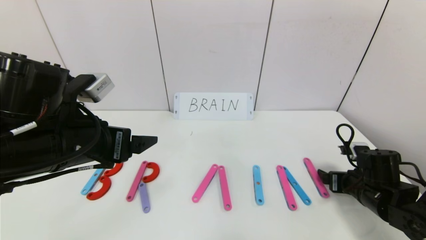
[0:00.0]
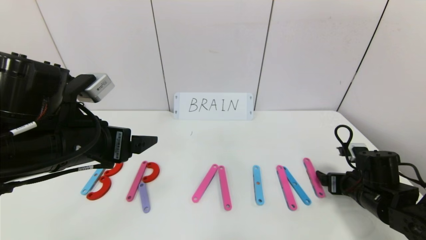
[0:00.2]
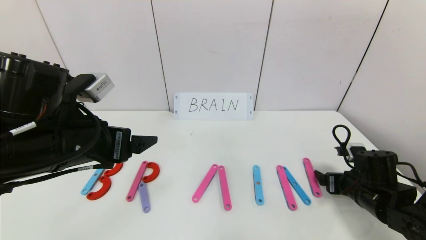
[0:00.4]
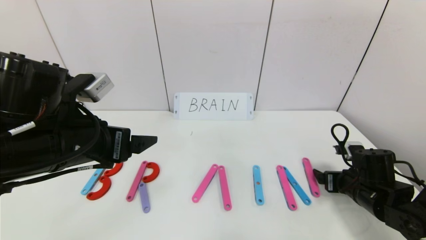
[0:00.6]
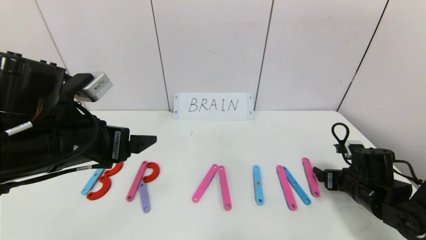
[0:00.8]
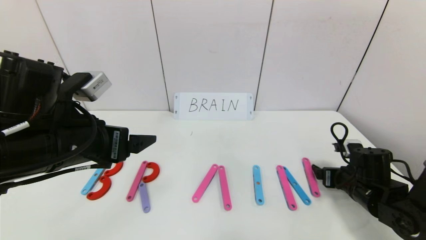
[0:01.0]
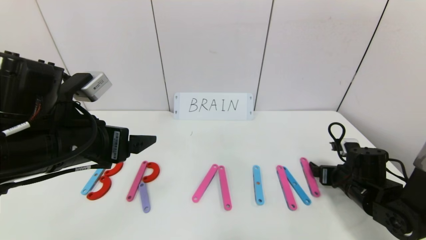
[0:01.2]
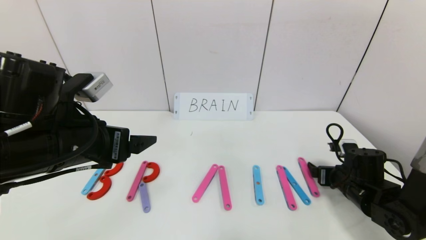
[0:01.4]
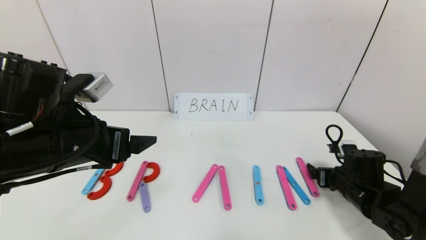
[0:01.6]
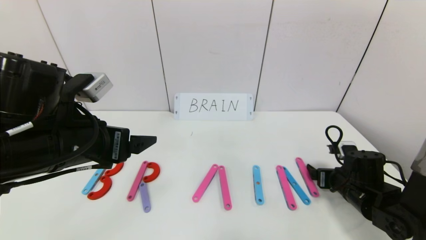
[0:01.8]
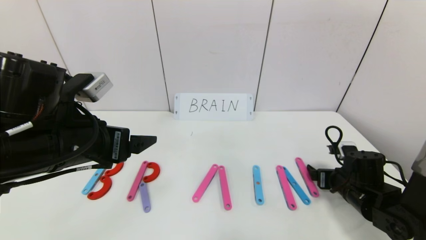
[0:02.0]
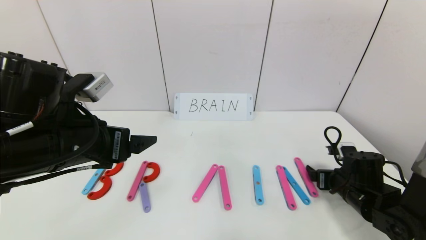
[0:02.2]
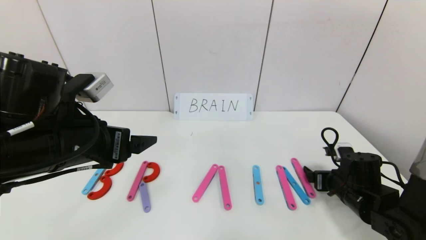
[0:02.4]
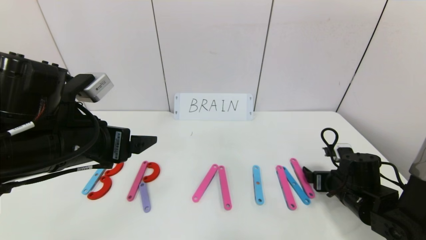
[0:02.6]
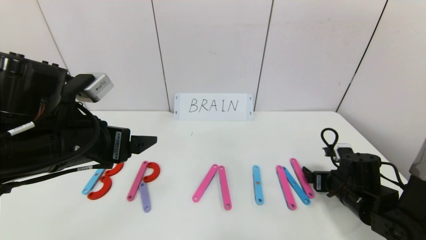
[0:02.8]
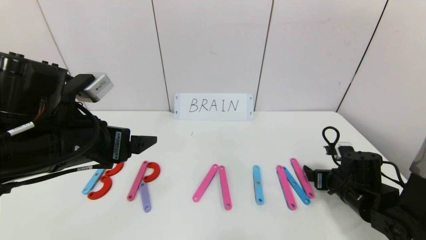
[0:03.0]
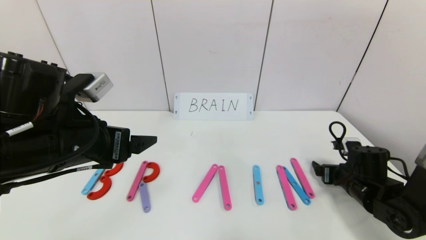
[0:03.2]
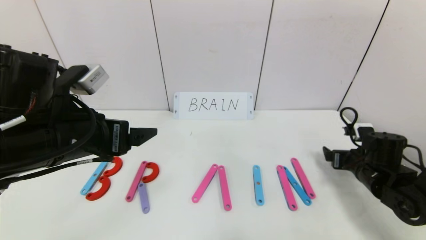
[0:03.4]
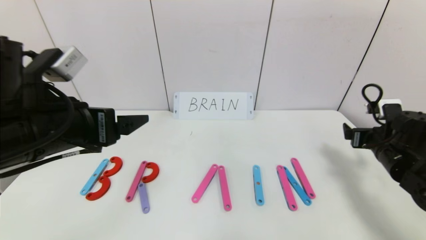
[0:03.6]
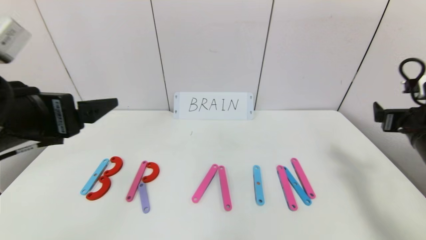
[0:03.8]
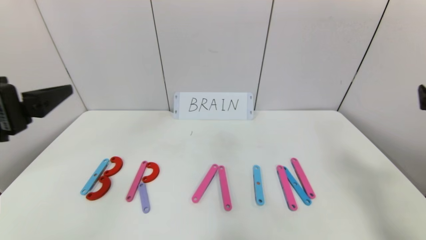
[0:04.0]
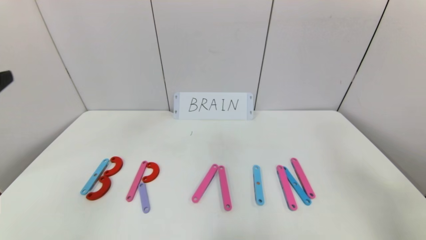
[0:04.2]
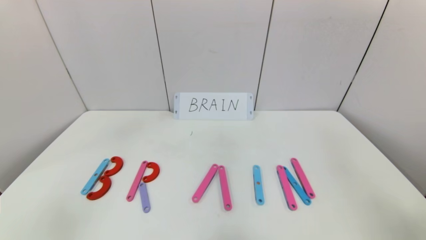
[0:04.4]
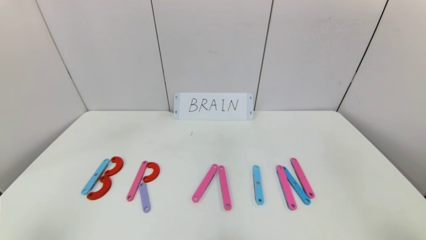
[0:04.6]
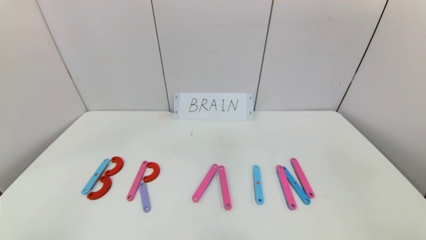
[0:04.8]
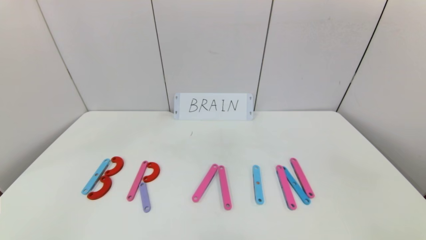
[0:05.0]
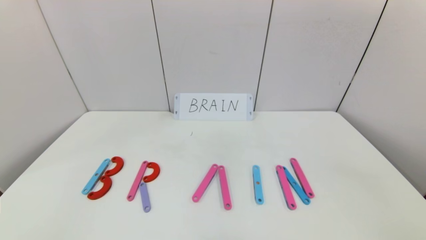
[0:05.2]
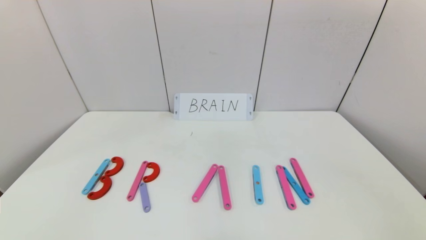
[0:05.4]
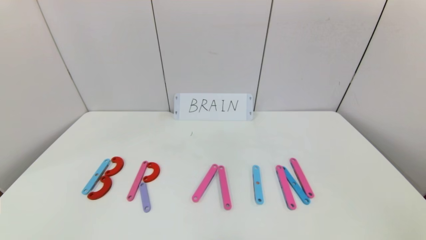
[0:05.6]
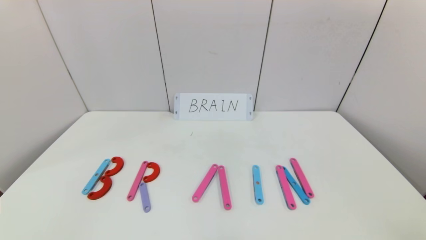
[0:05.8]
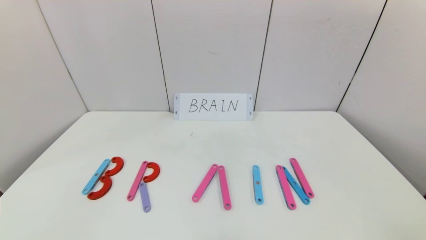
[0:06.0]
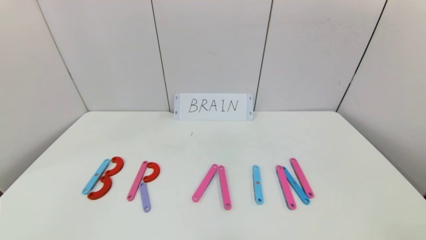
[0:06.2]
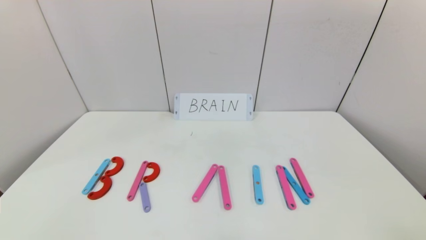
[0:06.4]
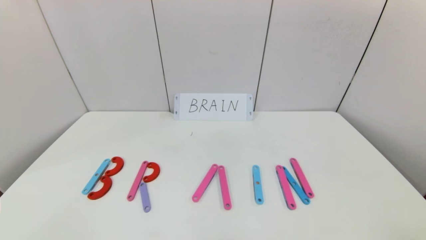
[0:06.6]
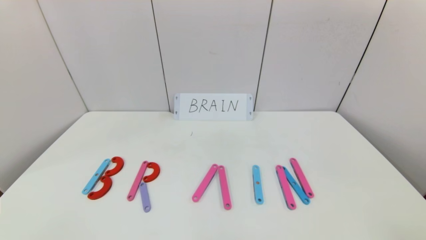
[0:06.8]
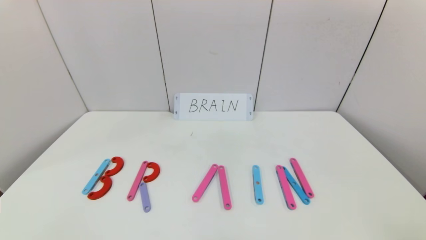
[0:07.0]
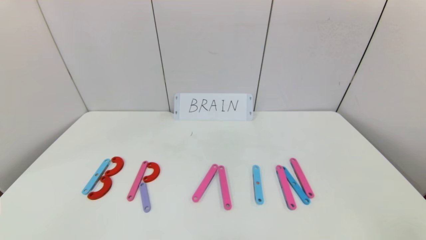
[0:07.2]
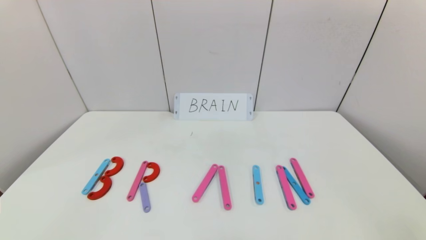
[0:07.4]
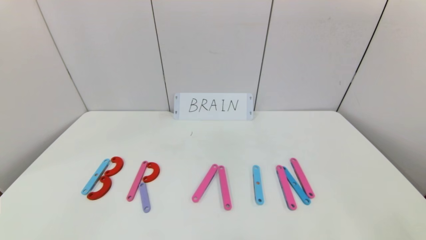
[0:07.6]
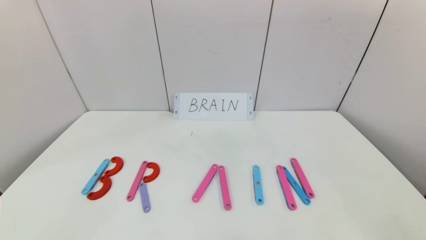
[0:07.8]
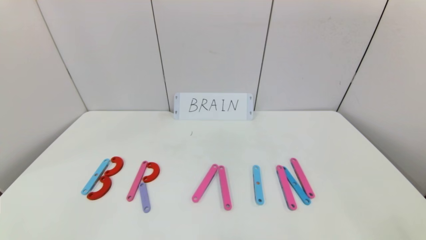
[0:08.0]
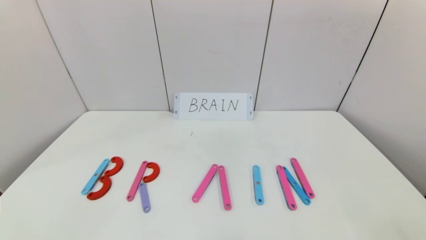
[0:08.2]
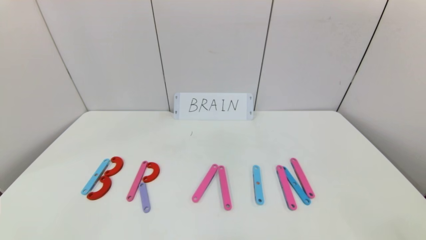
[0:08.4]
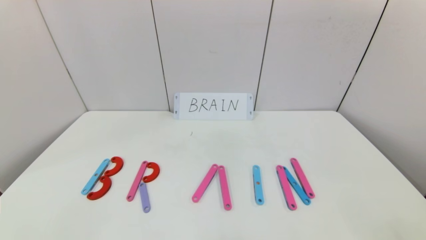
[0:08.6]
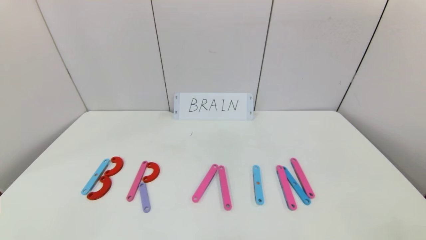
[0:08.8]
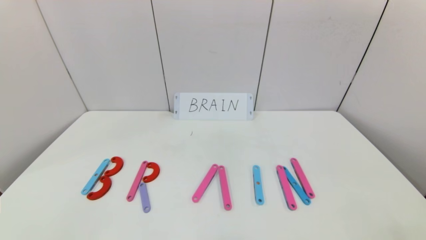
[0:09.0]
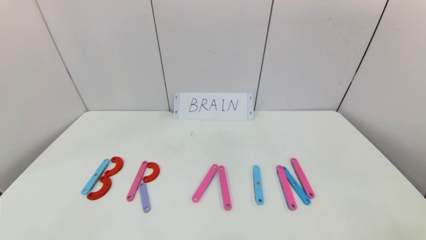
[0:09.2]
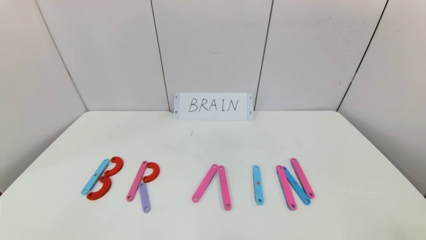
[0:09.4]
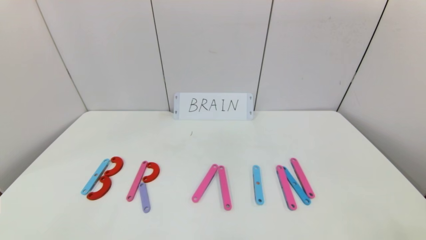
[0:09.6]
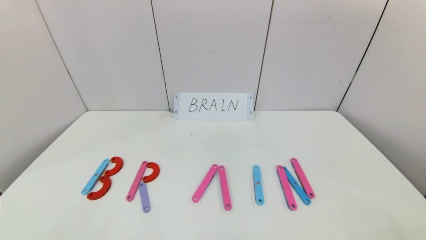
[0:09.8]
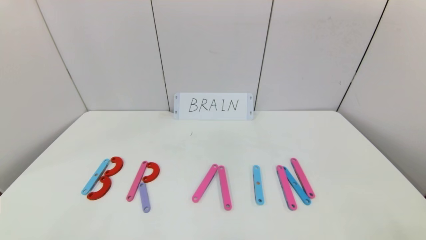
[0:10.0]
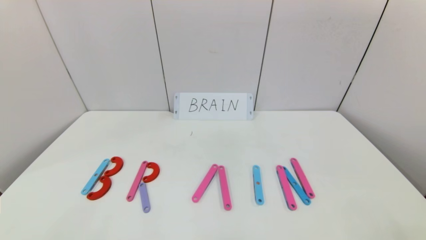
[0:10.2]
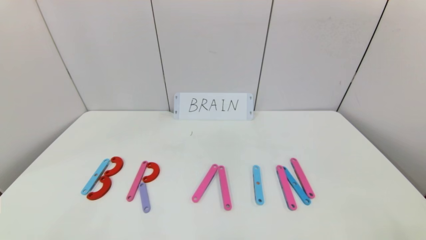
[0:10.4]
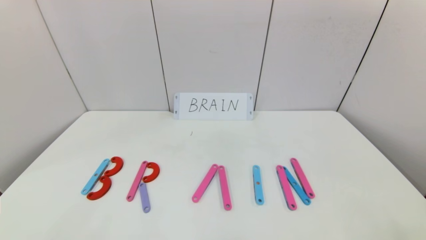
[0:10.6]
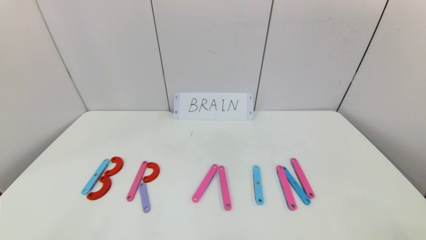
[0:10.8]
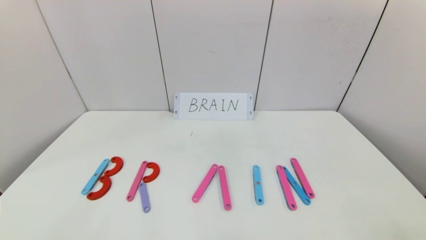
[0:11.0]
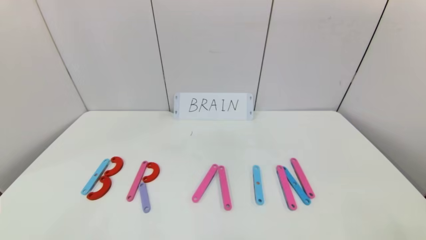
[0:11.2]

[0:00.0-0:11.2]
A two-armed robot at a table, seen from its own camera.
Task of the whole recording: rearrange the word baai as brain.
Step, 0:00.0 to 0:03.4: Place the character N after character I.
0:00.0 to 0:03.2: There are only small adjustments of the grippers.
0:03.2 to 0:04.8: The left gripper shifts some 25 cm backward and to the left. Meanwhile the right gripper shifts roughly 40 cm backward and upward.
